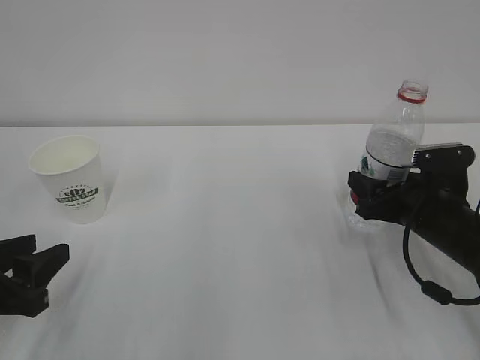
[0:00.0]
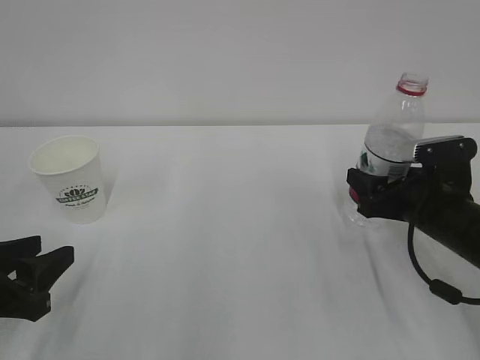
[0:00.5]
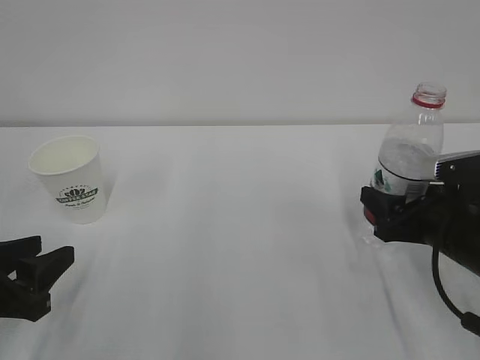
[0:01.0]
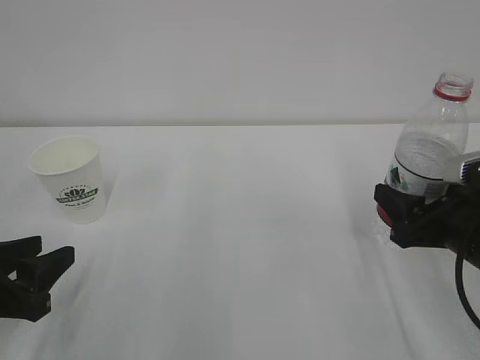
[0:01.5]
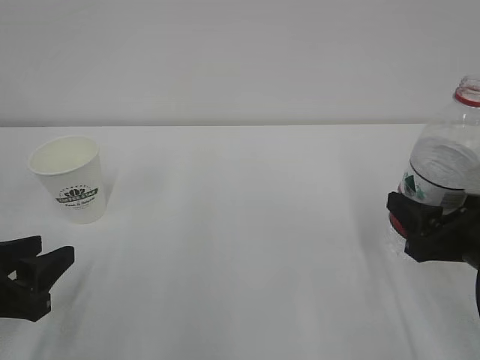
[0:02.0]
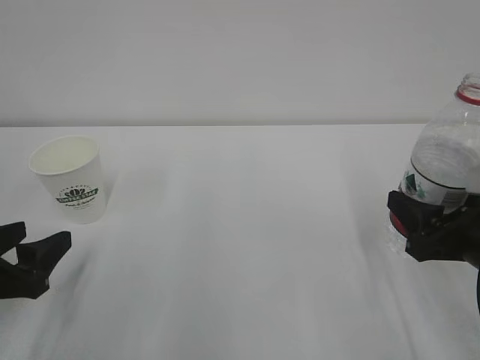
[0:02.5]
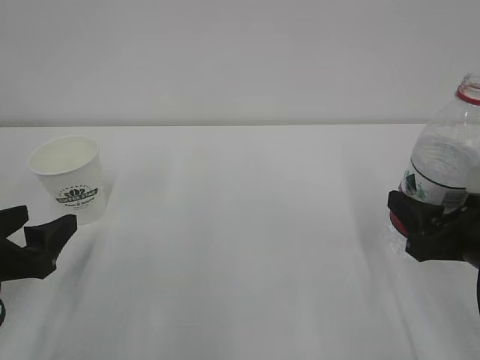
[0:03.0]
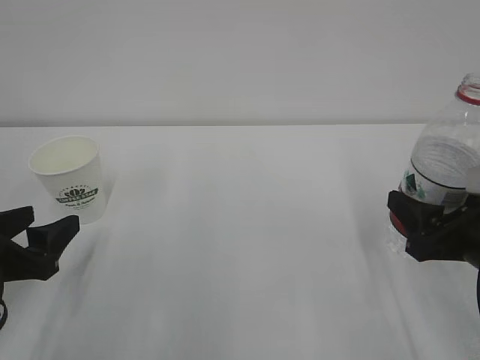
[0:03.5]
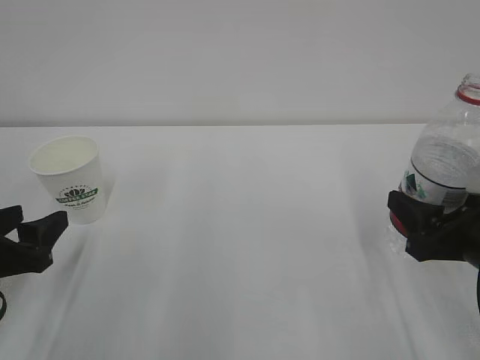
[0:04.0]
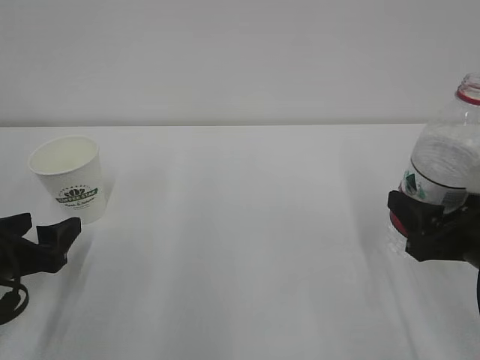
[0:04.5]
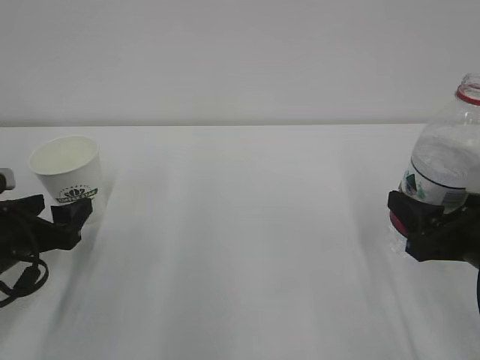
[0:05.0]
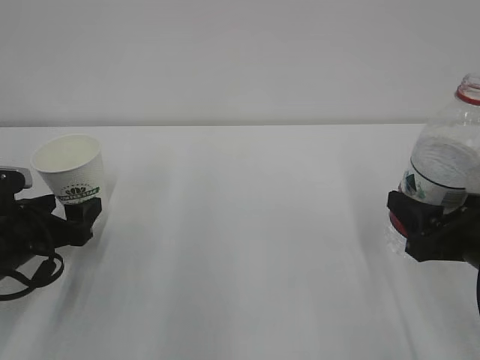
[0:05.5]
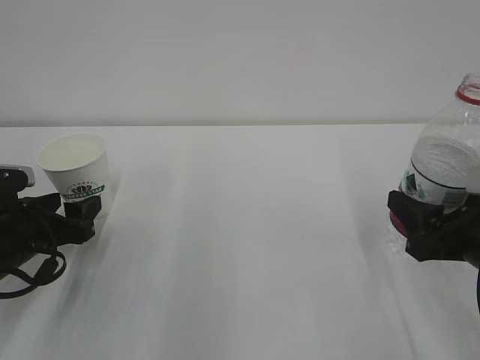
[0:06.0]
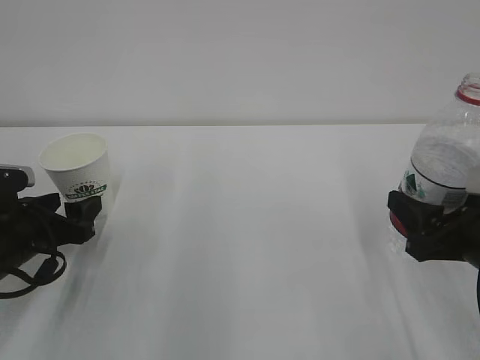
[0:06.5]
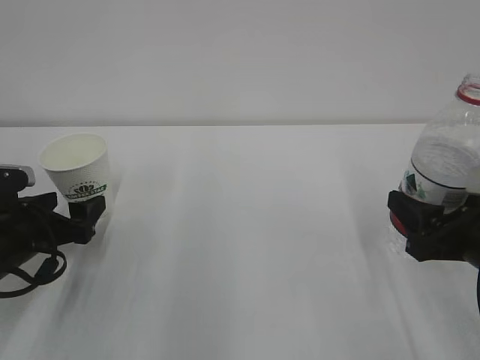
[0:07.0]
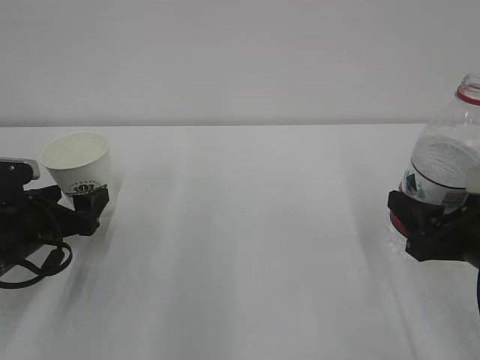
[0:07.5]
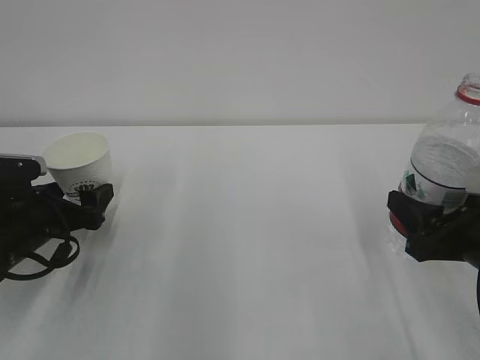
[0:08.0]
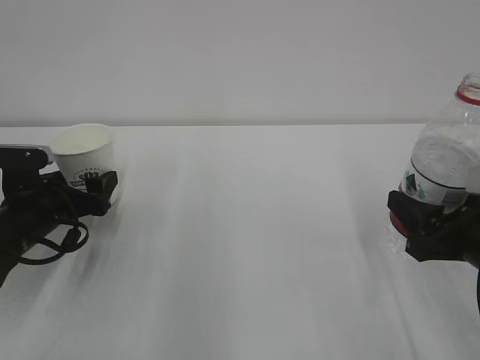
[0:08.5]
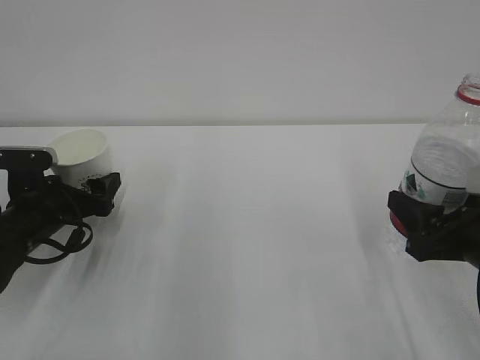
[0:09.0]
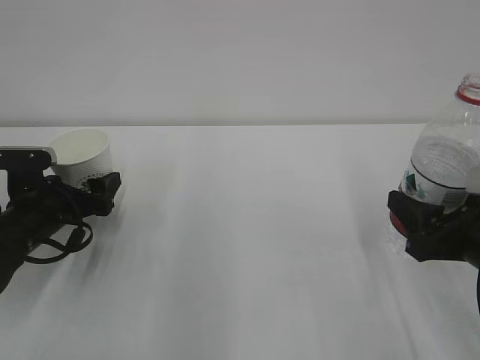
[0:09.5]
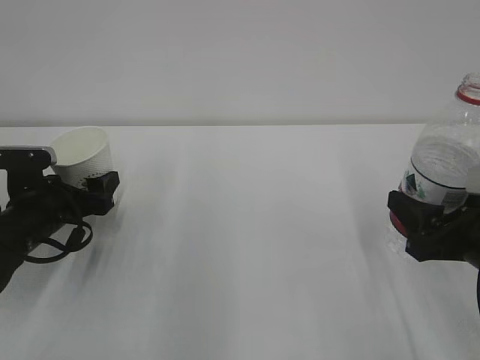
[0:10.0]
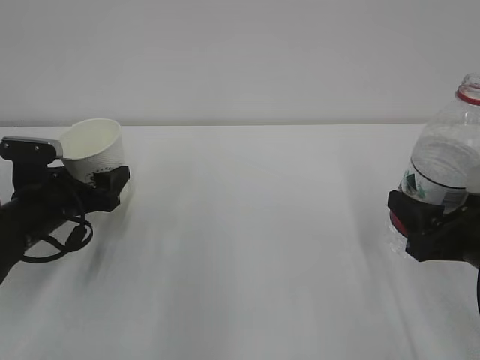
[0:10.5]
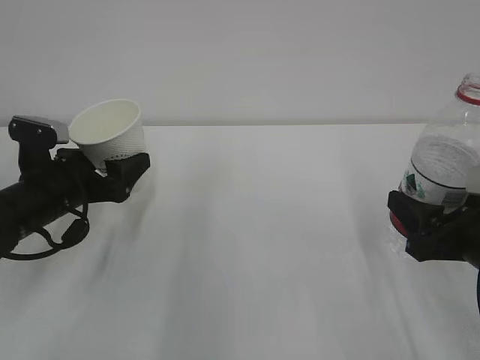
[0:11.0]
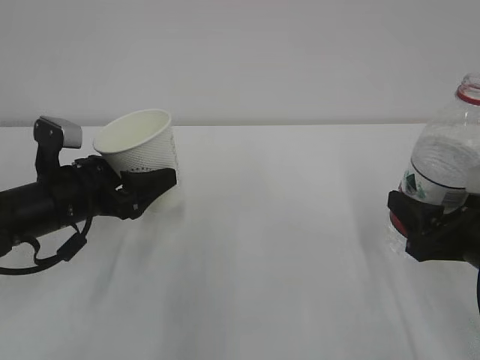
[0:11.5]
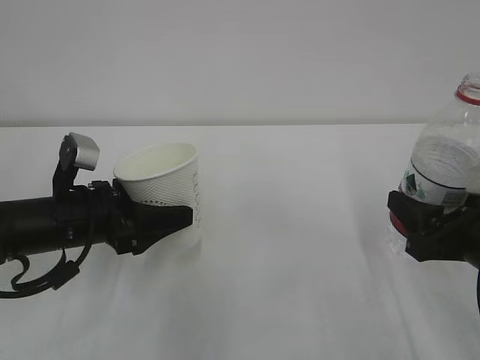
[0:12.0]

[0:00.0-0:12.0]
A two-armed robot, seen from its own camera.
0.0 to 2.0 s: The right gripper moves backward and upward, some 10 cm.
2.0 to 4.0 s: The left gripper opens up.
4.0 to 6.0 s: The left gripper shifts about 5 cm forward.
6.0 to 8.0 s: The left gripper opens its fingers.
8.0 to 10.0 s: The grippers make only small movements.
10.0 to 12.0 s: The left gripper is displaced to the right by approximately 5 cm.

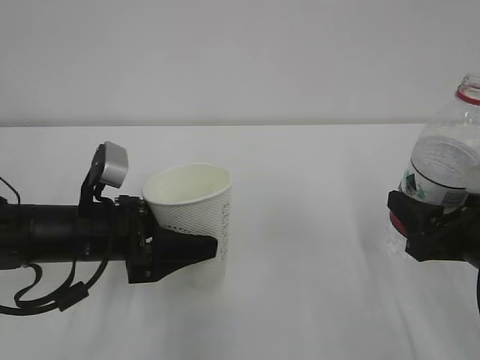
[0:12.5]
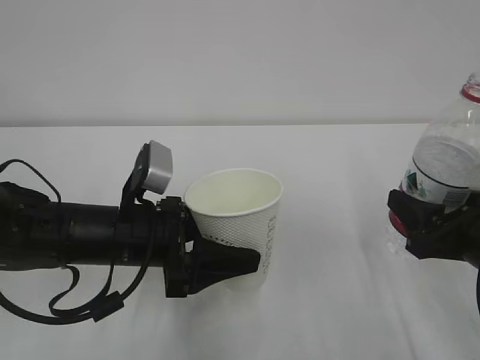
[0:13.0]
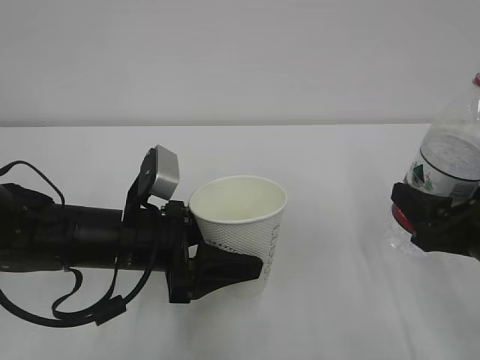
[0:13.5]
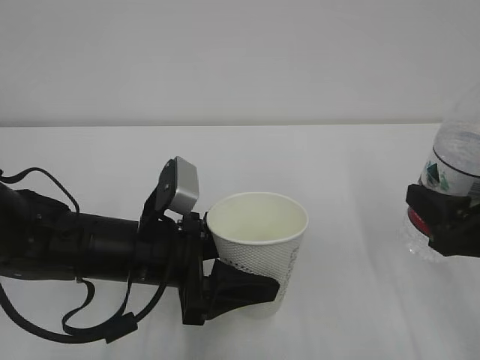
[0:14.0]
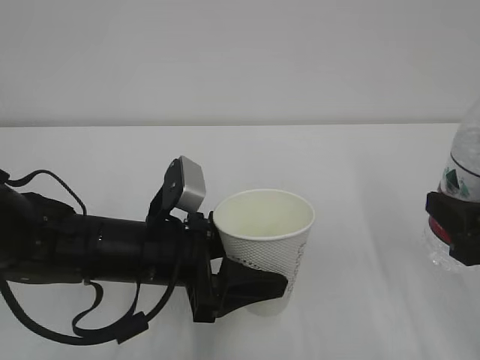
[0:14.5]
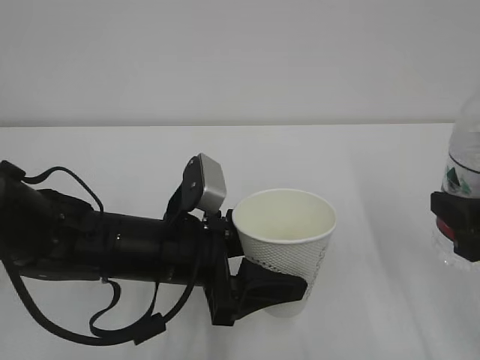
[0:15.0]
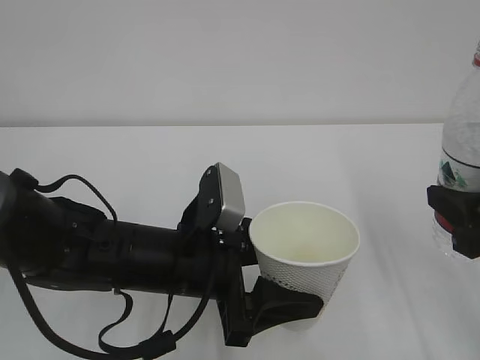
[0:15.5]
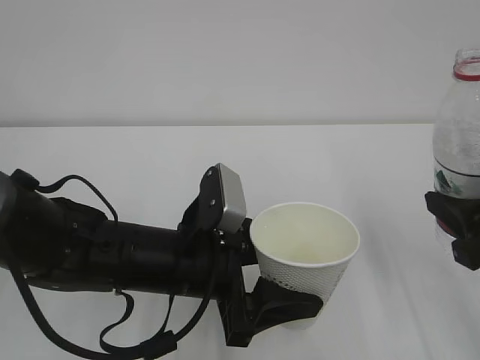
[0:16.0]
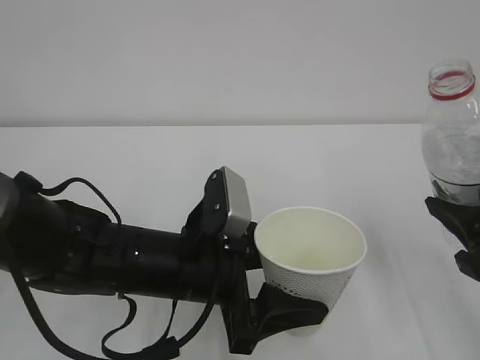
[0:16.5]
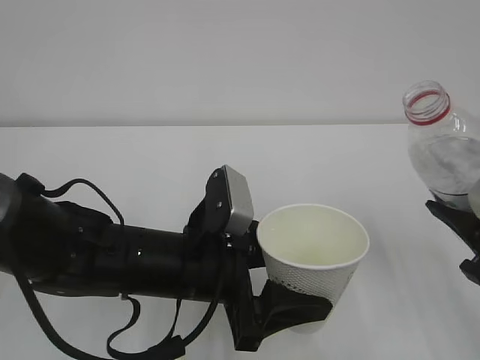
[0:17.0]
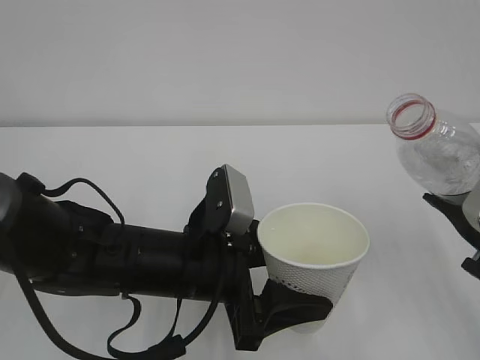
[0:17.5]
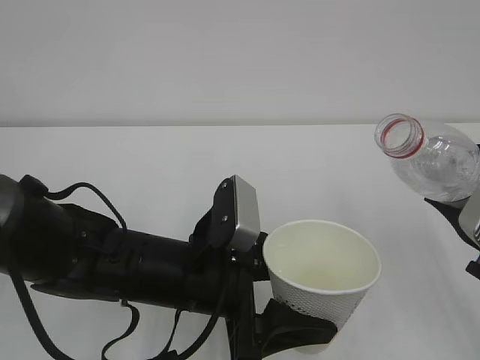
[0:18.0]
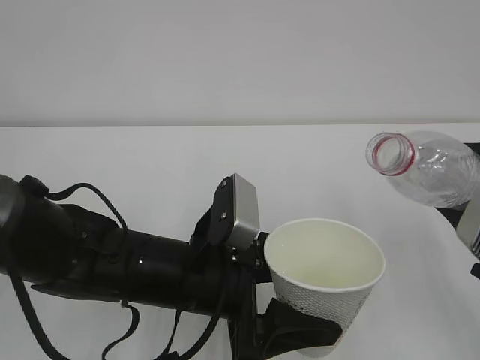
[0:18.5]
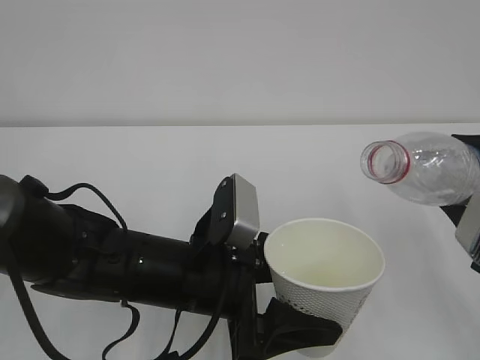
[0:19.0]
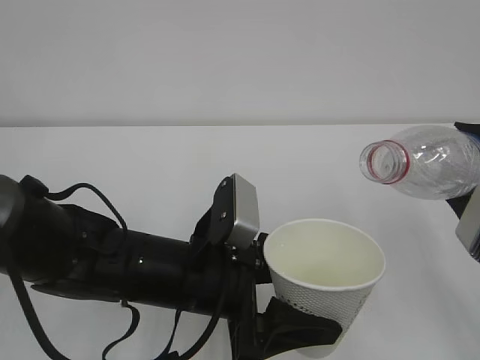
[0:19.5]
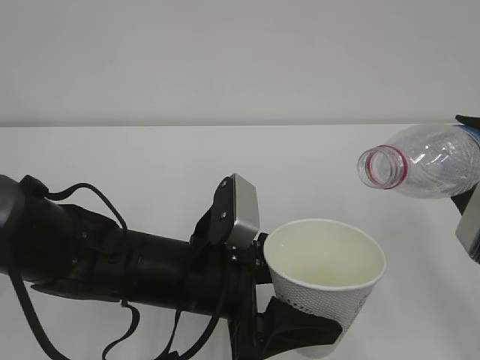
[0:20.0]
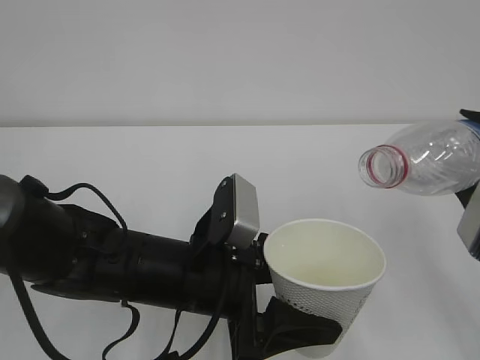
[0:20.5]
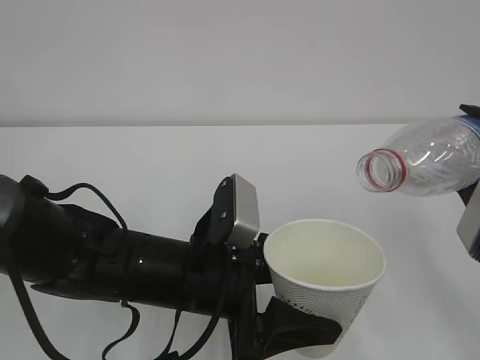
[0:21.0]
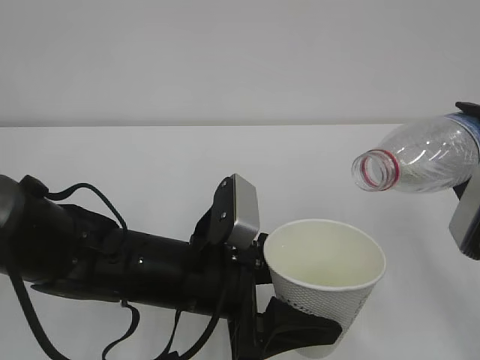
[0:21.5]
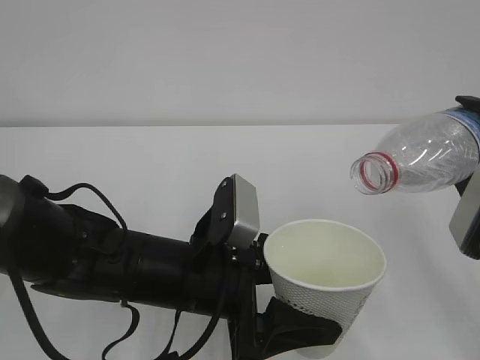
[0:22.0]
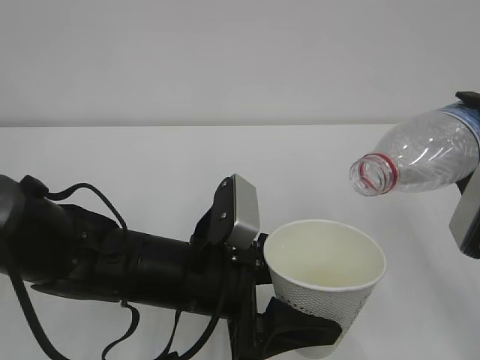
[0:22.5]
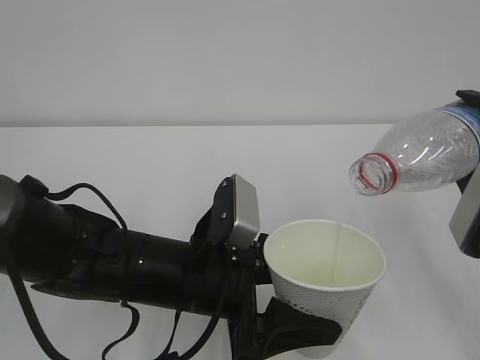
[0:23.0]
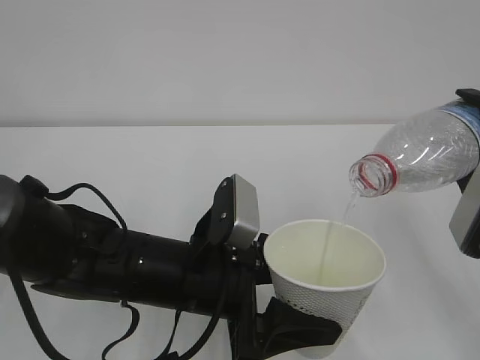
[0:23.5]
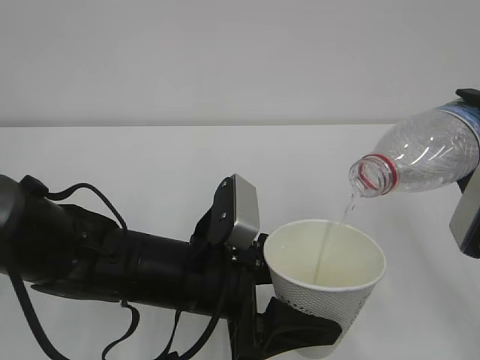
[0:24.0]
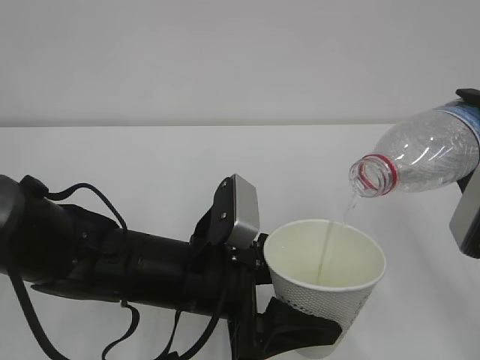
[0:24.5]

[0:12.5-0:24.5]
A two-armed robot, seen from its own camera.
12.5 to 14.5 s: The left gripper shifts some 5 cm to the right. The right gripper travels upward by some 5 cm.
18.5 to 20.5 s: The grippers make only small movements.
20.5 to 22.5 s: There are only small adjustments of the grippers.
22.5 to 24.5 s: The two grippers keep their place.

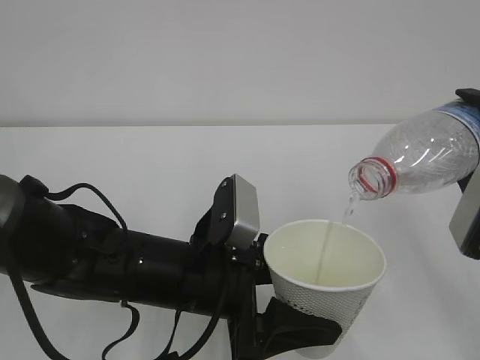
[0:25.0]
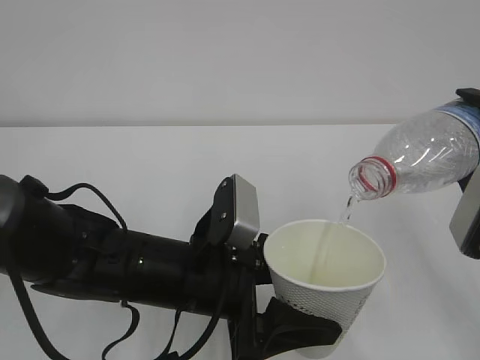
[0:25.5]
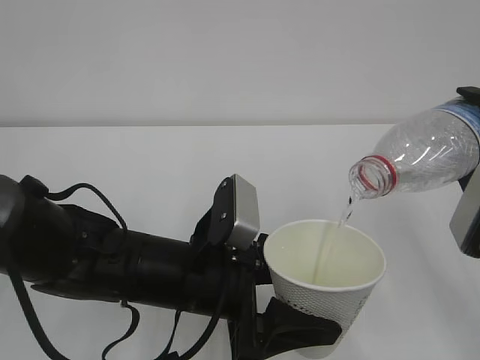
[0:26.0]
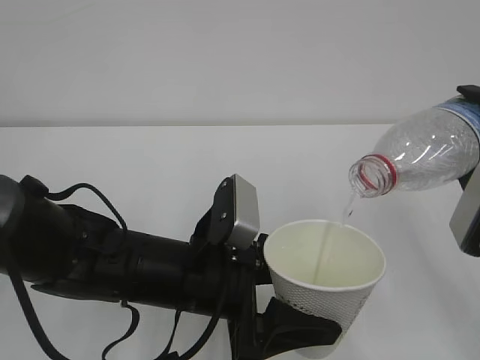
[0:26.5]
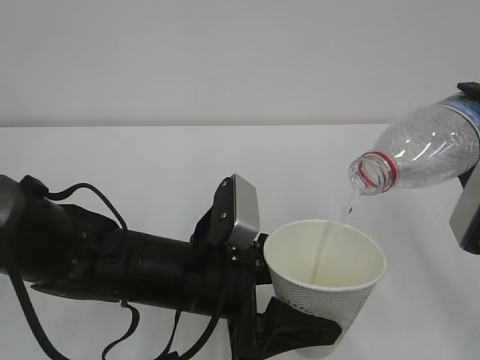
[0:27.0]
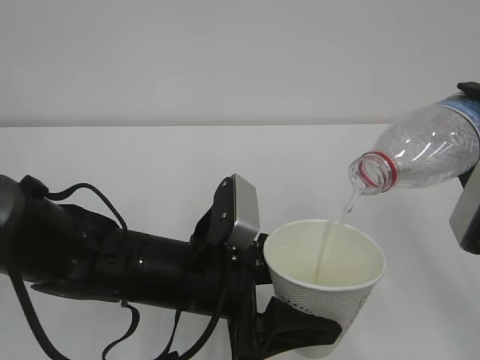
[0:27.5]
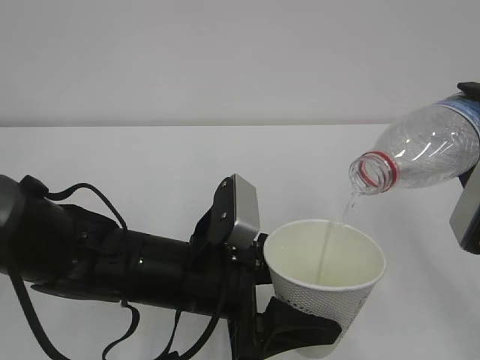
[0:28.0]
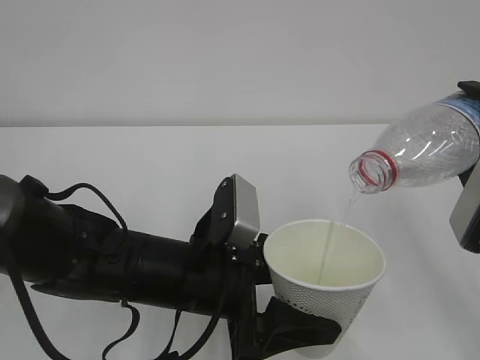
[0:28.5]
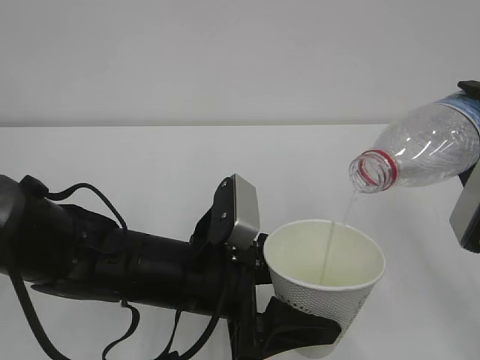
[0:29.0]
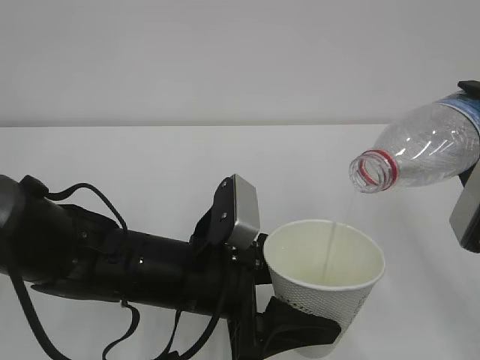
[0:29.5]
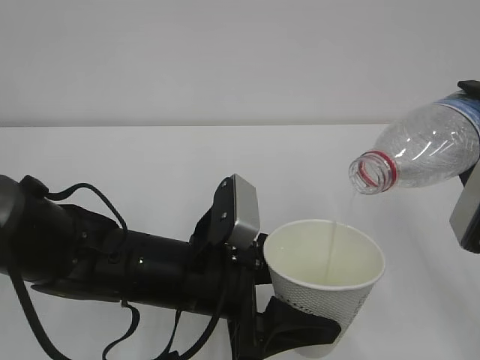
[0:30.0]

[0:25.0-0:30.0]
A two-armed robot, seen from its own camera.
25.0 to 30.0 s: Both grippers stay about where they are.
